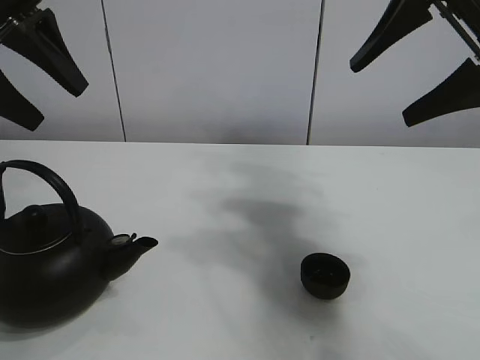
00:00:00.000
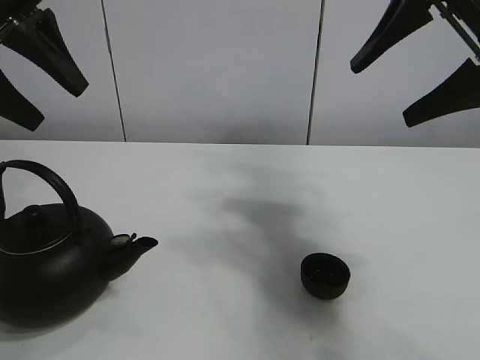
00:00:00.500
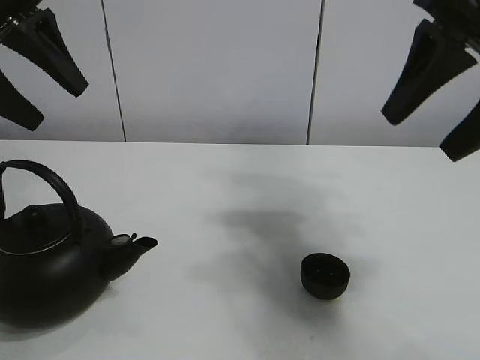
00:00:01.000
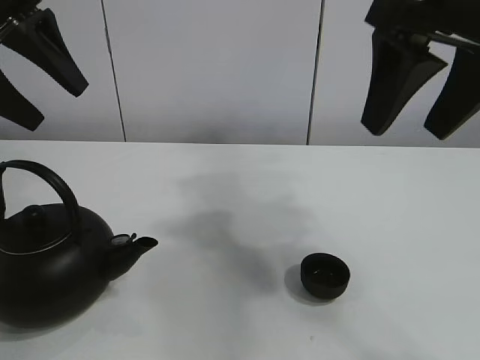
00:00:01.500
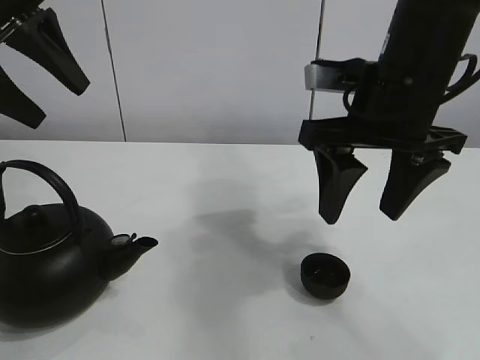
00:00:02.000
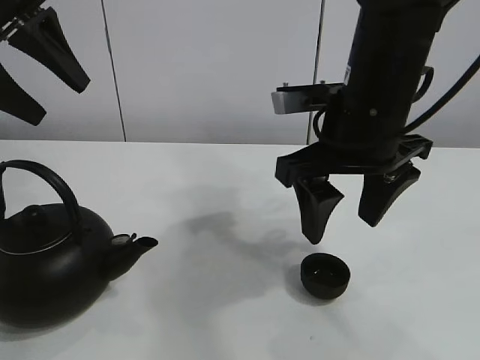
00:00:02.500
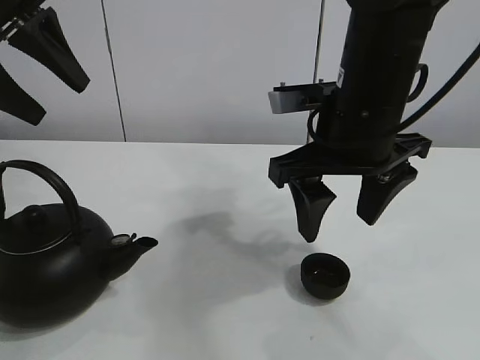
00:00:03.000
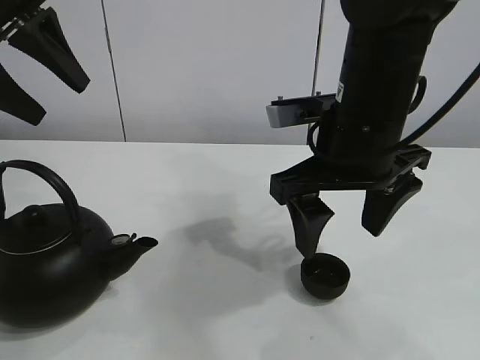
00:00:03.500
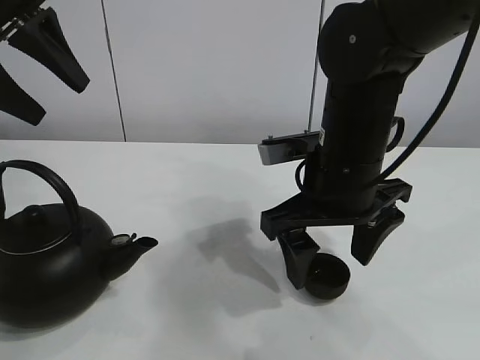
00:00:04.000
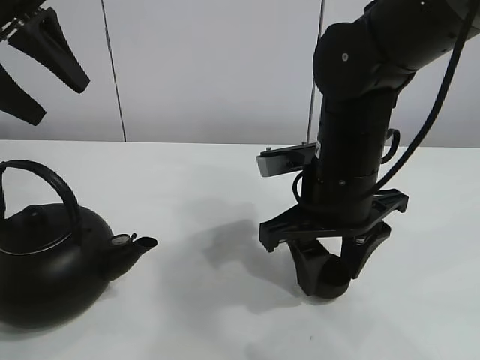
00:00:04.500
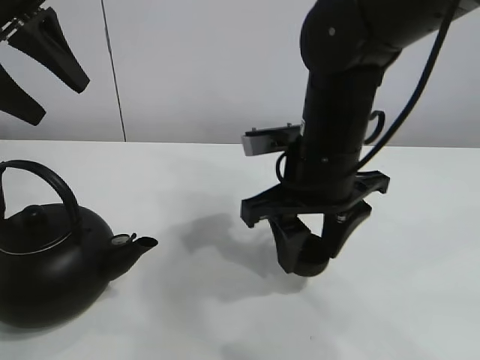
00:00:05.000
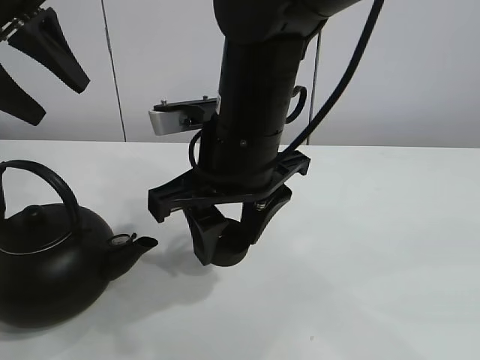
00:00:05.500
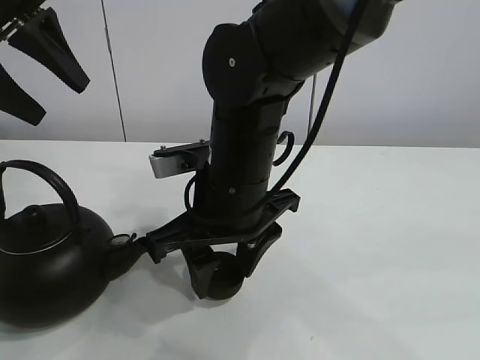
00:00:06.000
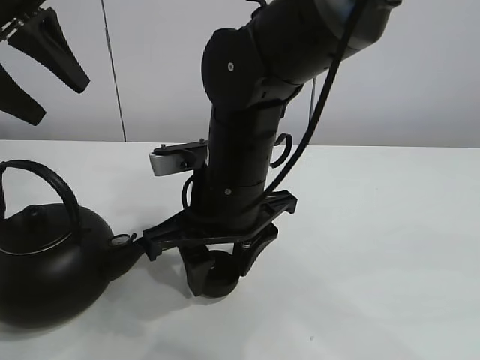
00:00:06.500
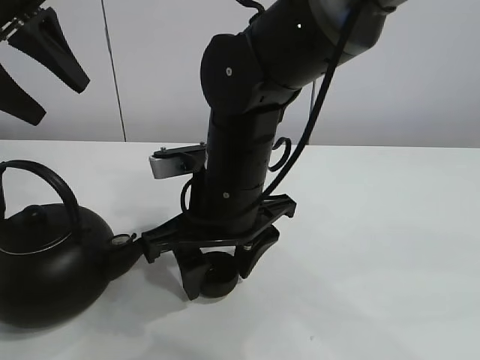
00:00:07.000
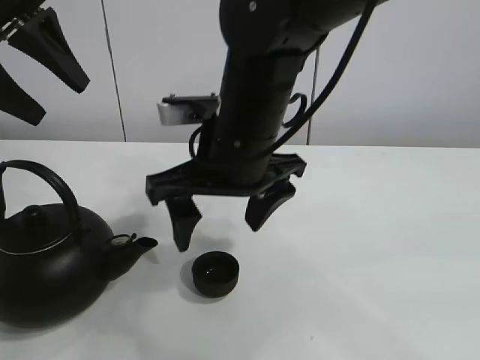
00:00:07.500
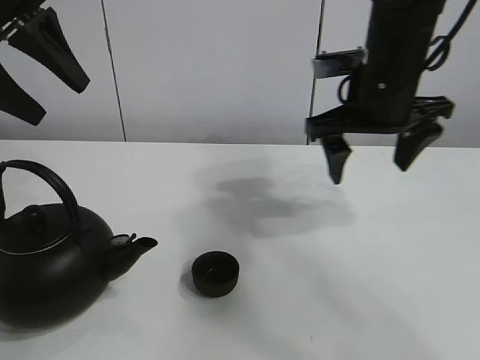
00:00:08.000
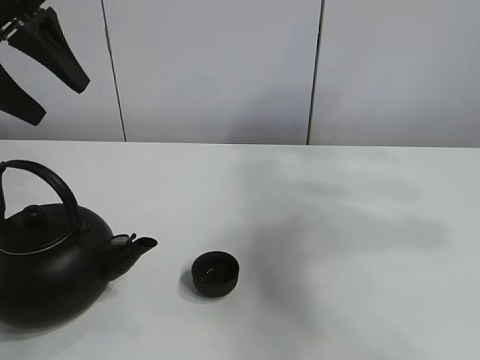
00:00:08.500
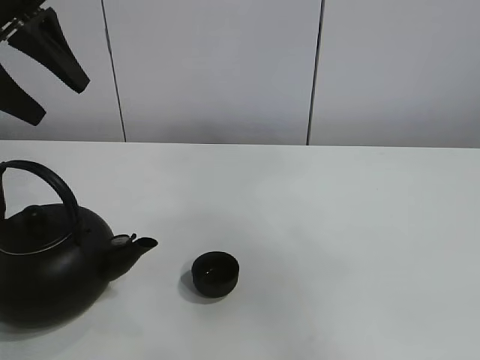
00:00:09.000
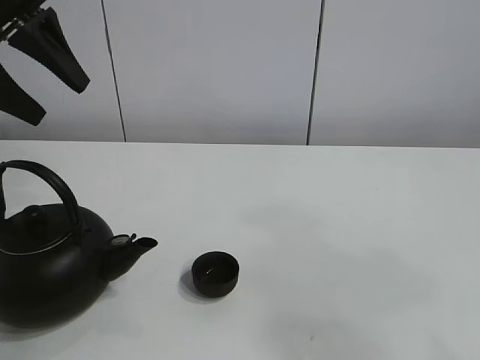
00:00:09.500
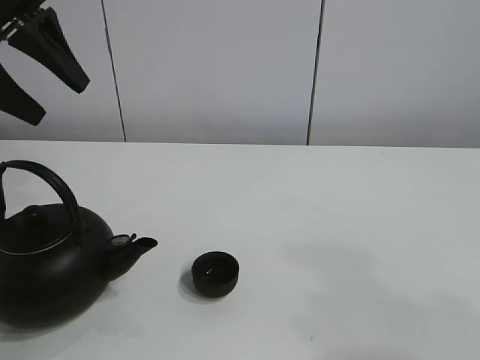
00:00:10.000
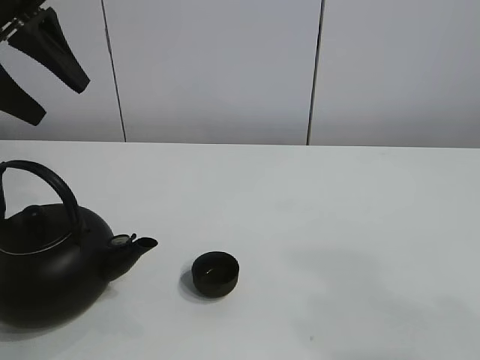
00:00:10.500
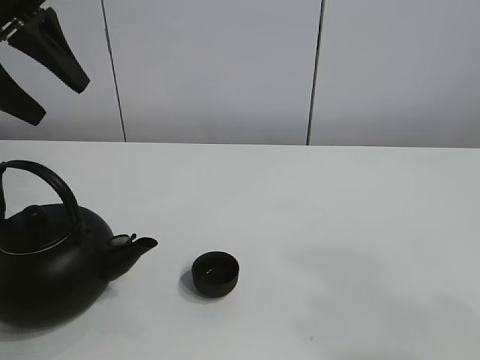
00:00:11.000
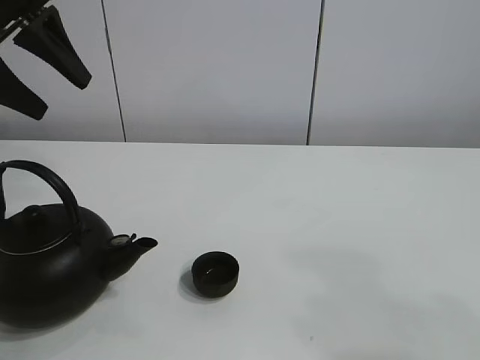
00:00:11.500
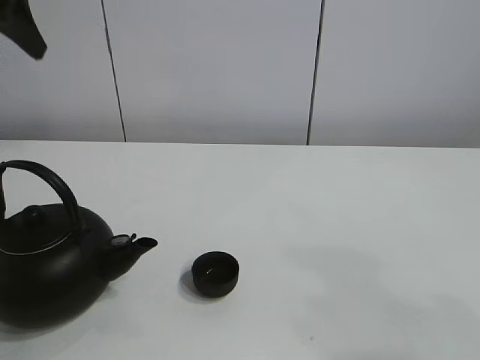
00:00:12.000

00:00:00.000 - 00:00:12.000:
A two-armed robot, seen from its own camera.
Task of the whole recording: pour tea into the teacup.
Step, 00:00:00.000 - 00:00:04.500: Pick up the teacup with the right gripper.
Step, 00:00:05.000 - 00:00:07.000: Place the teacup in the center of view with the right gripper.
00:00:02.000 - 00:00:04.000: The right gripper shifts roughly 10 cm downward, and opens.
00:00:04.000 - 00:00:06.000: The right gripper shifts about 10 cm to the left, and closes up.
00:00:06.000 - 00:00:08.000: The right gripper heads to the right, forward and upward, covering about 20 cm, and opens.
00:00:08.000 - 00:00:10.000: The right gripper travels backward by approximately 40 cm.

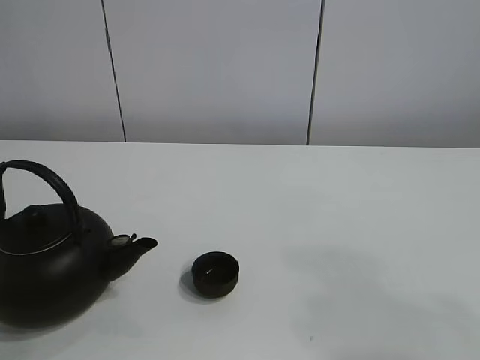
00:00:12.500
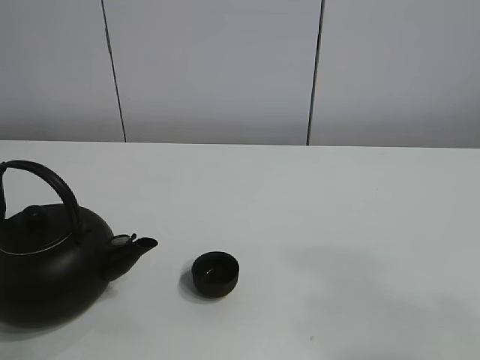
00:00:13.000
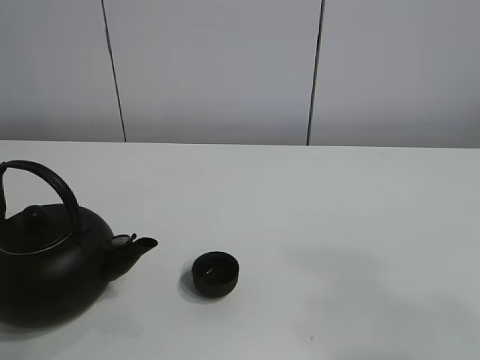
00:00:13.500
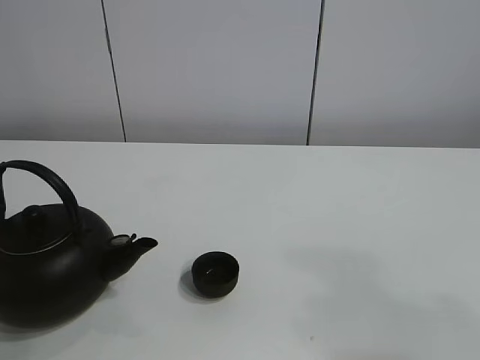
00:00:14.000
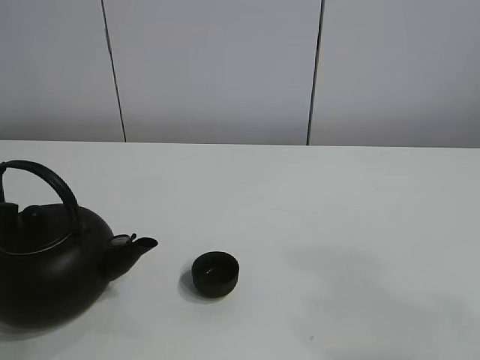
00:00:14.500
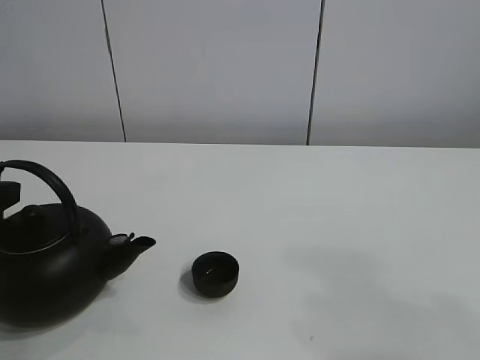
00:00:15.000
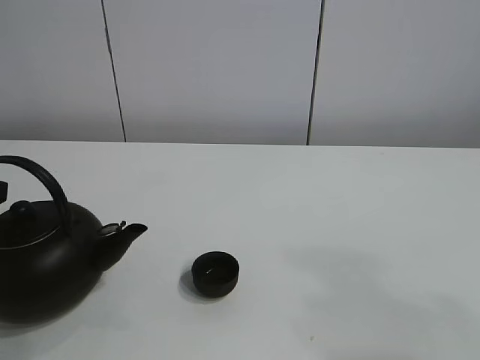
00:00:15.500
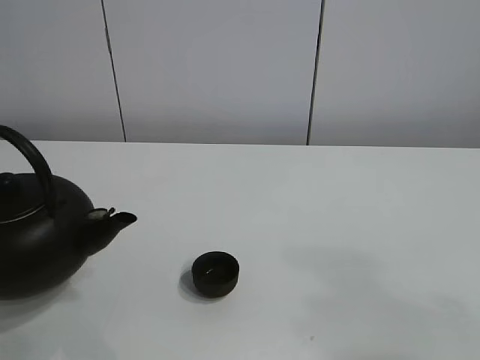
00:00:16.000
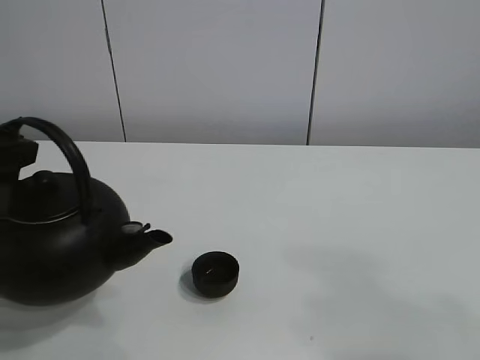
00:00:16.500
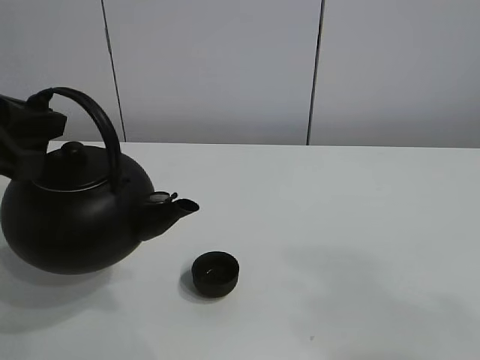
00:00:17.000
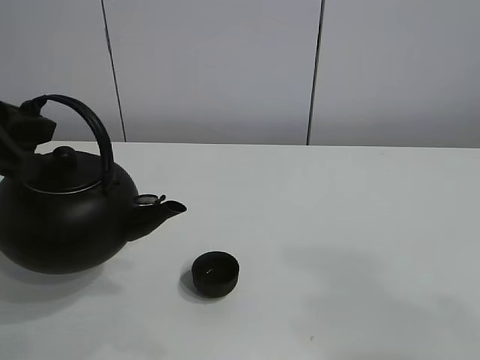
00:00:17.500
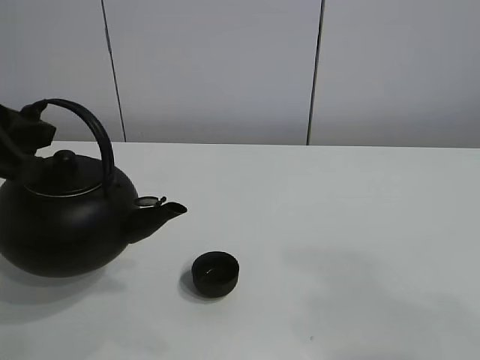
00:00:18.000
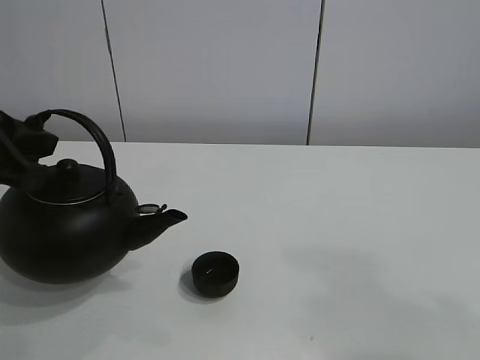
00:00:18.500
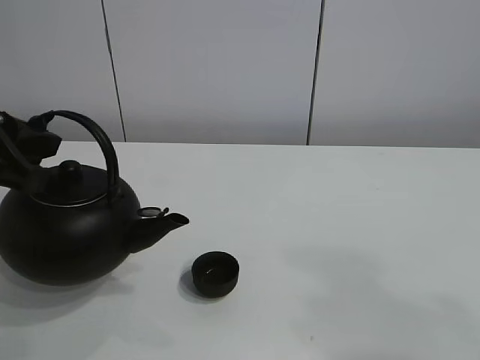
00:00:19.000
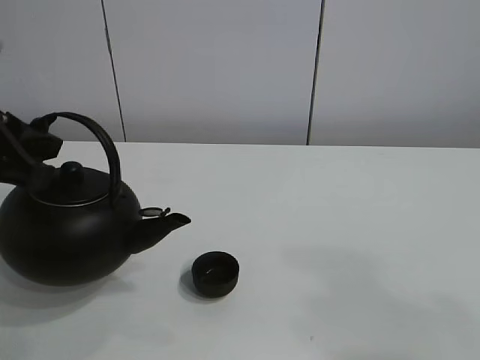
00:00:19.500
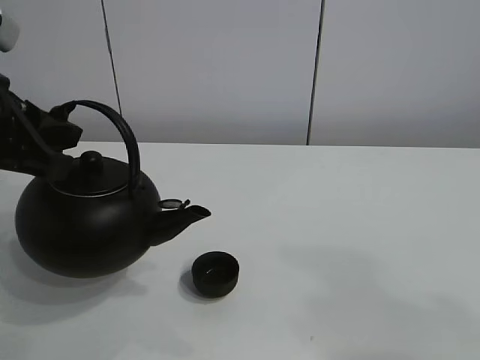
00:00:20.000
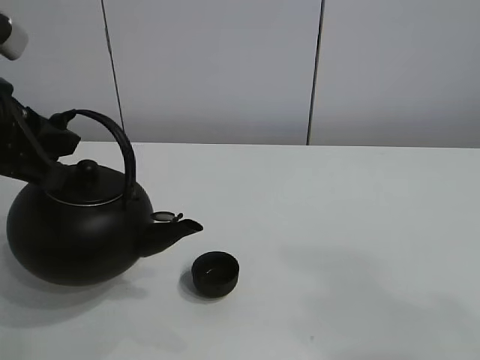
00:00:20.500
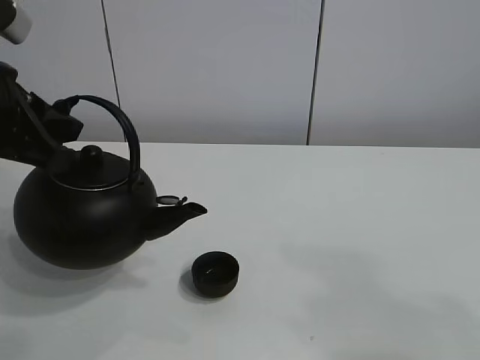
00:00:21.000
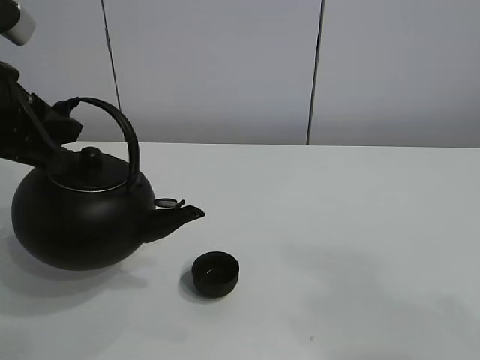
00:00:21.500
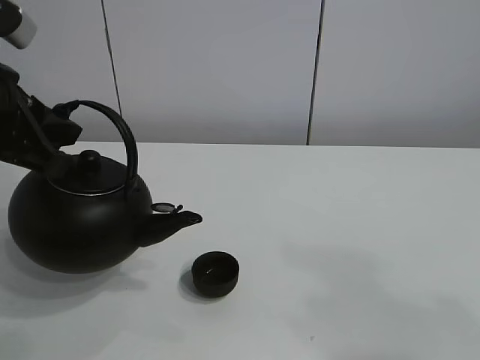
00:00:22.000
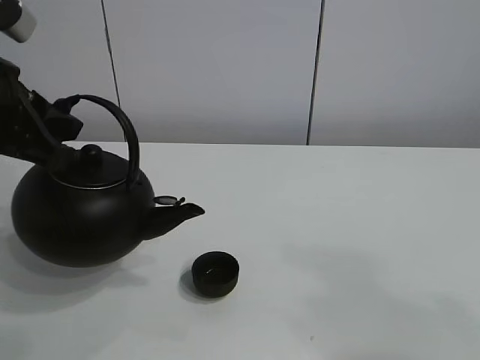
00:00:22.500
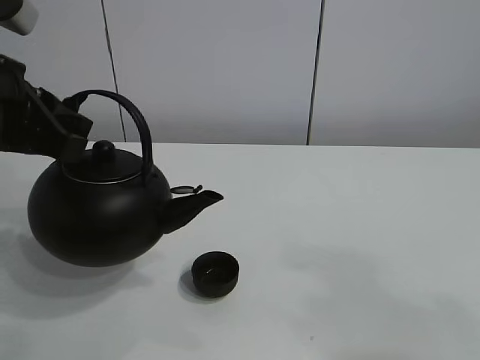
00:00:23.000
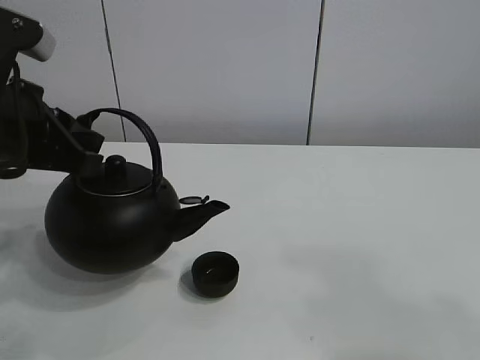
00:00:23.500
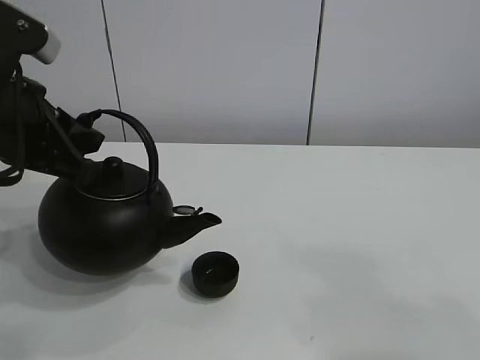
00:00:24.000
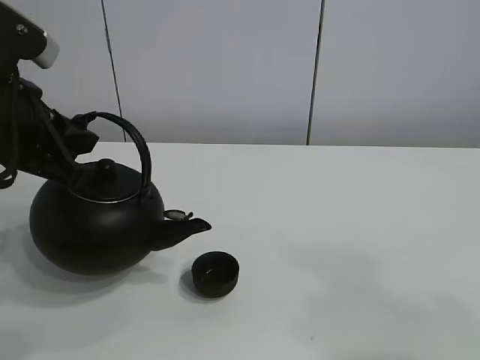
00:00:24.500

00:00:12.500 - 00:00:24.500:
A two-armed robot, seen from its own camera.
Task of the whole recording: pour tea into the teacup.
Step, 00:00:12.500 - 00:00:15.500: Pick up the teapot with the left gripper.
00:00:14.500 - 00:00:16.500: The left gripper travels upward by some 5 cm, and closes up.
00:00:16.500 - 00:00:20.500: There are only small adjustments of the grippers.
00:00:20.500 - 00:00:24.500: There are only small adjustments of the grippers.

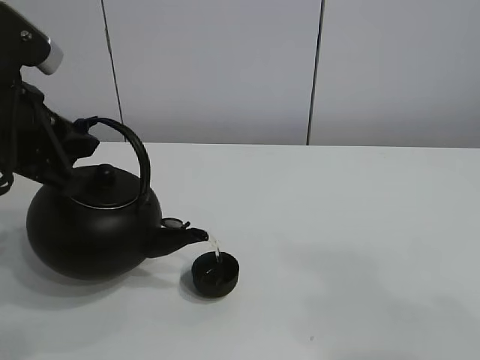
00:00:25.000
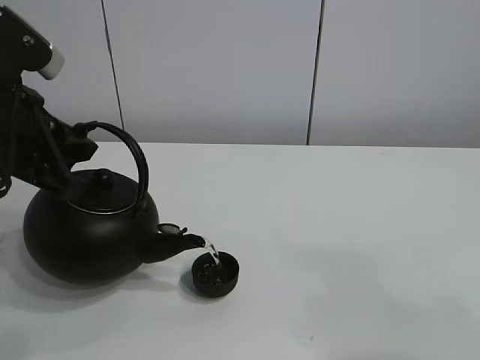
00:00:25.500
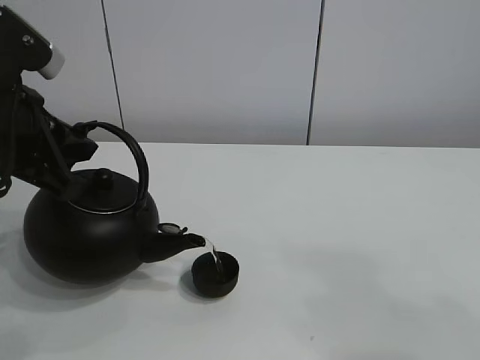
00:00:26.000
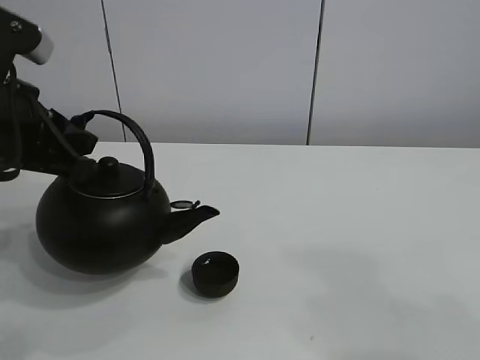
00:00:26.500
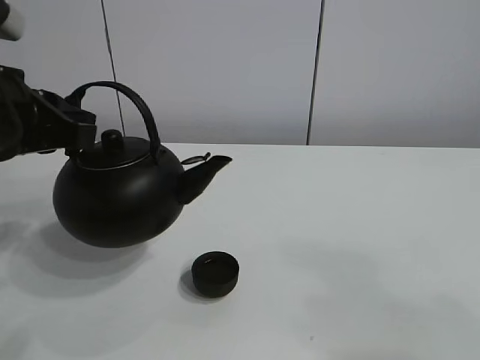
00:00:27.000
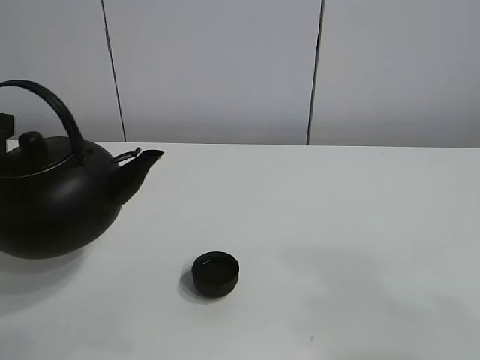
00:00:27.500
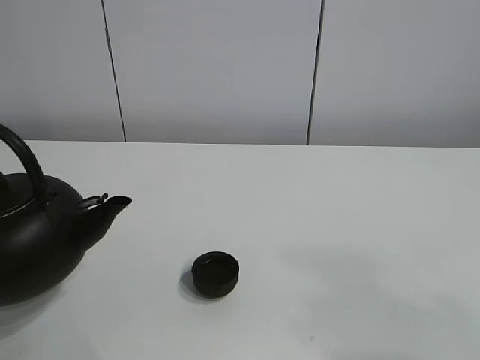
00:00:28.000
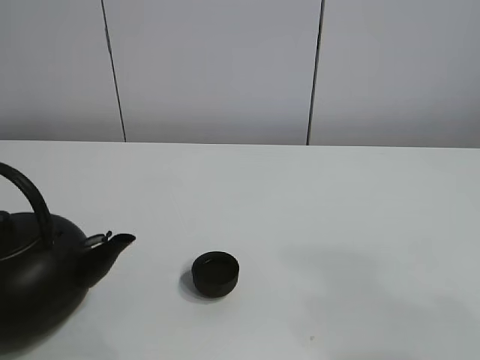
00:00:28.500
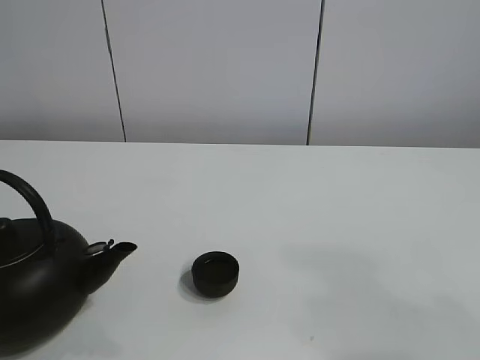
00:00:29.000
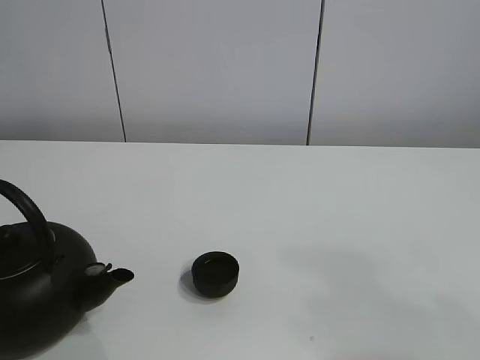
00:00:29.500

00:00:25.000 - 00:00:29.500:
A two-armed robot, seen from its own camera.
Task of the whole recording: pour tea into the teacup.
00:00:27.000 - 00:00:29.500: The left gripper goes roughly 15 cm backward, to the left and downward, and opens.
